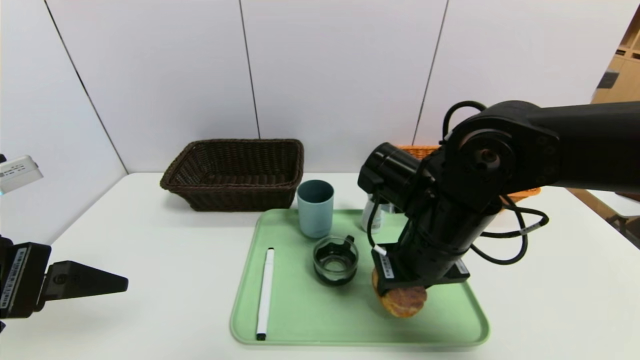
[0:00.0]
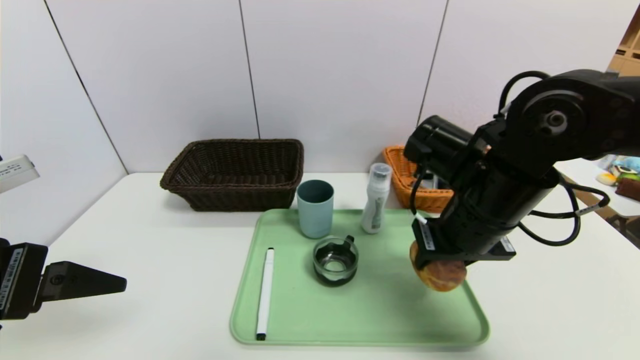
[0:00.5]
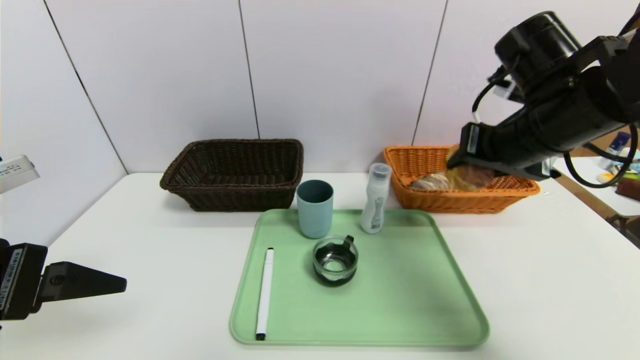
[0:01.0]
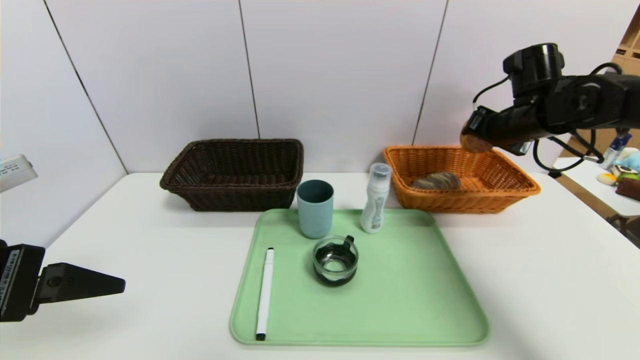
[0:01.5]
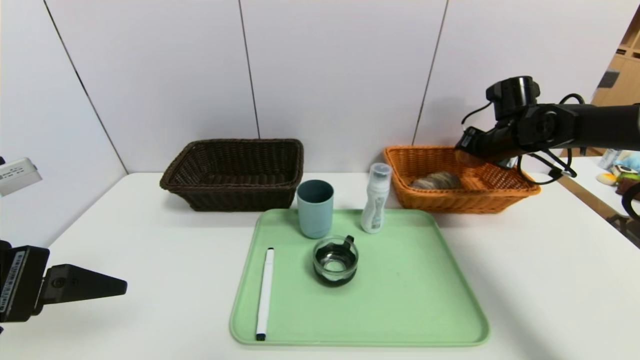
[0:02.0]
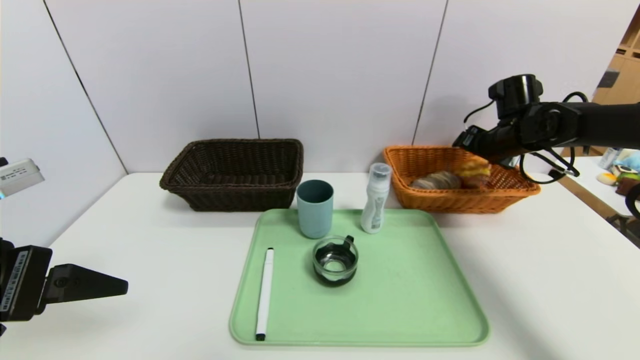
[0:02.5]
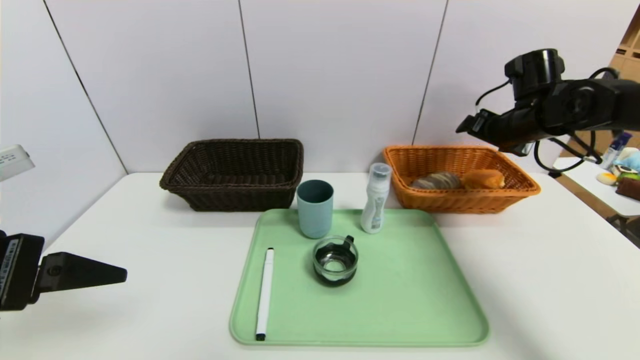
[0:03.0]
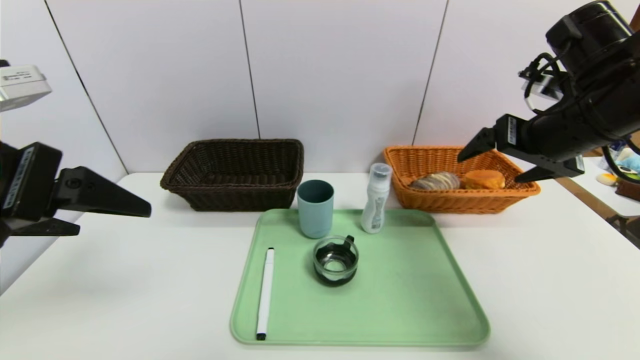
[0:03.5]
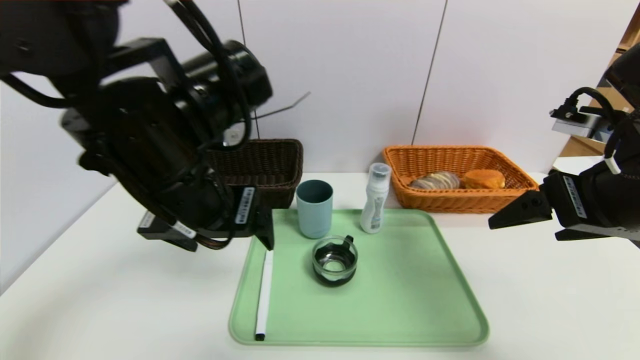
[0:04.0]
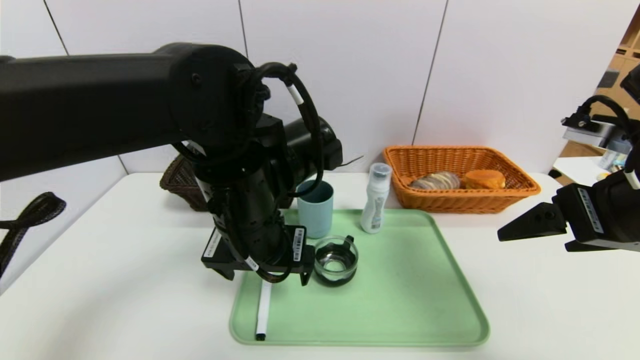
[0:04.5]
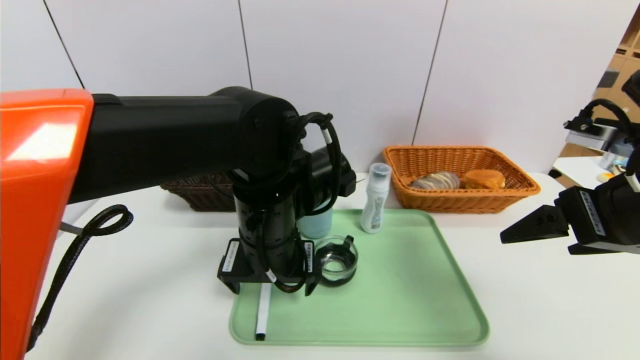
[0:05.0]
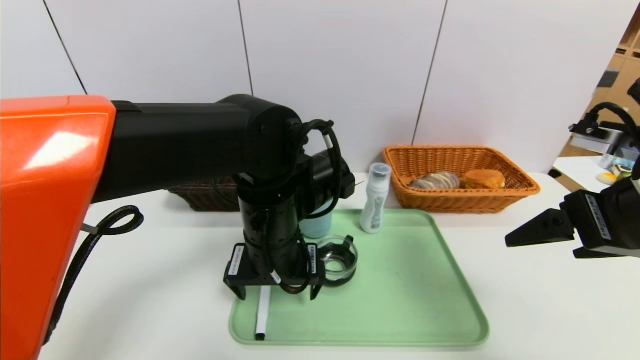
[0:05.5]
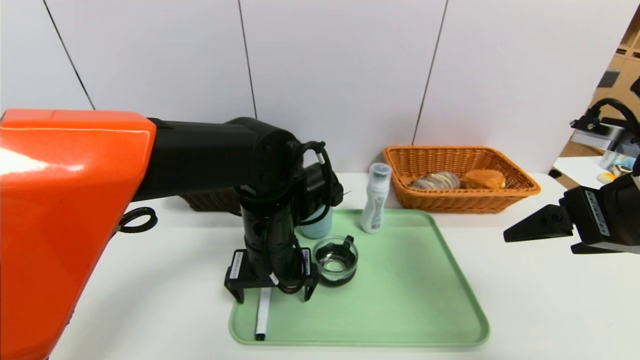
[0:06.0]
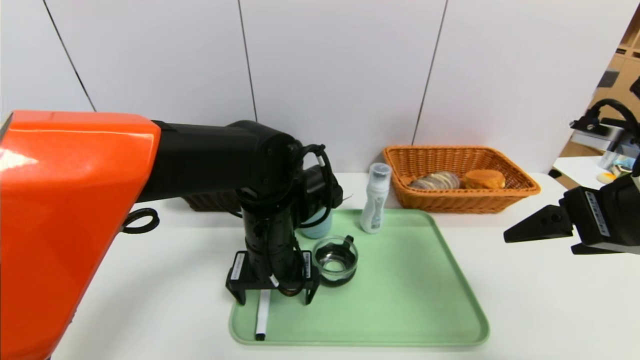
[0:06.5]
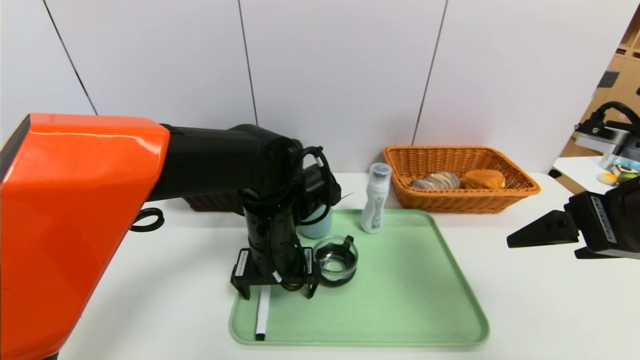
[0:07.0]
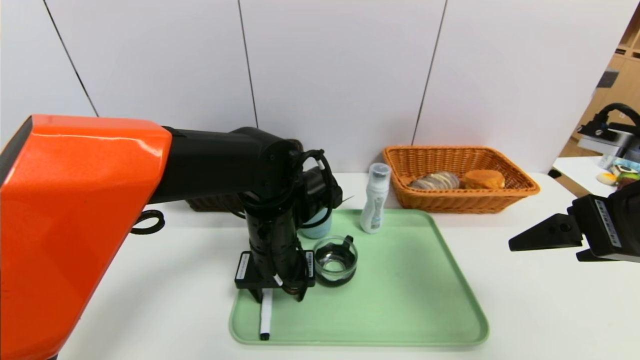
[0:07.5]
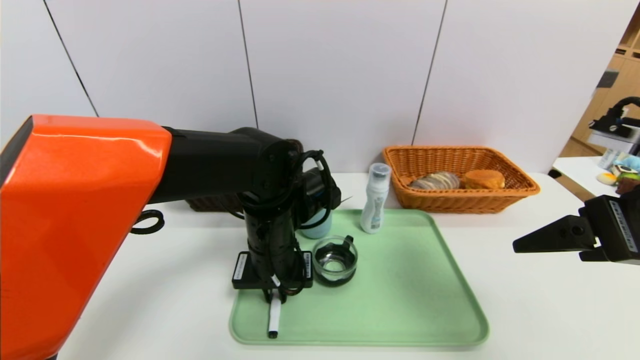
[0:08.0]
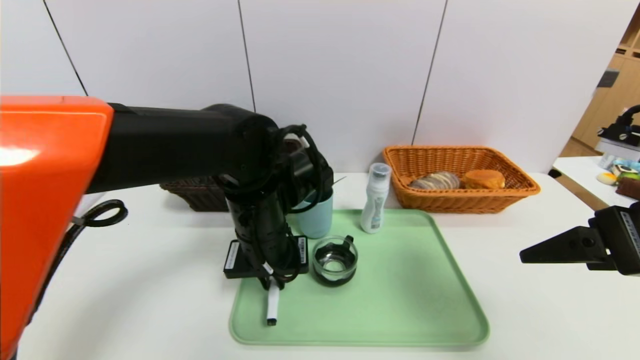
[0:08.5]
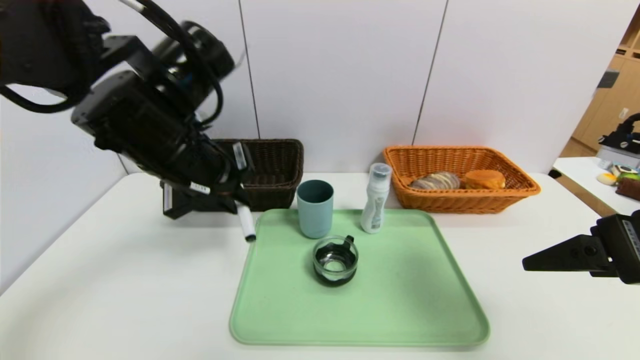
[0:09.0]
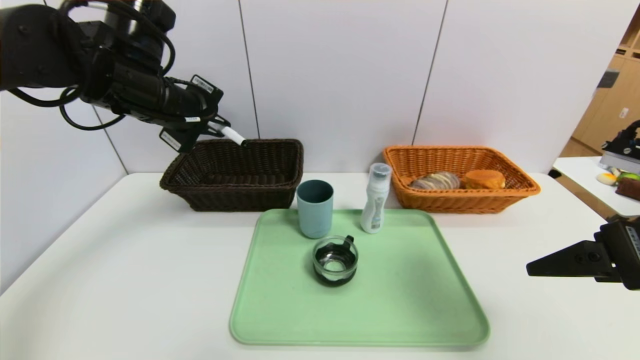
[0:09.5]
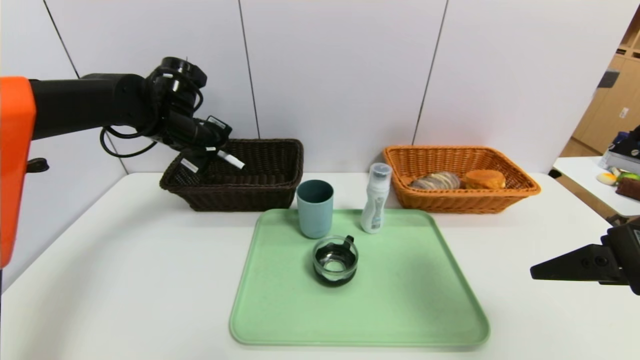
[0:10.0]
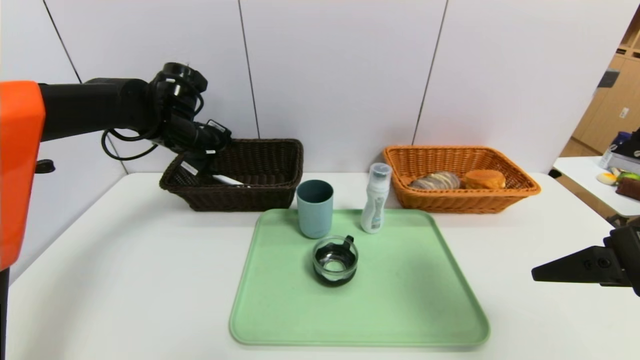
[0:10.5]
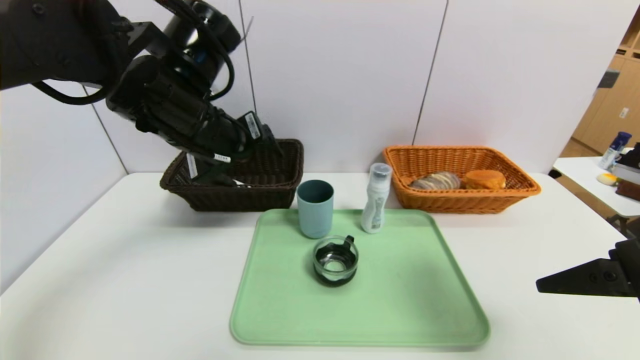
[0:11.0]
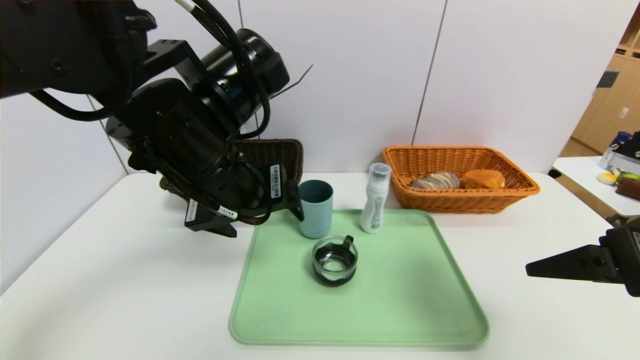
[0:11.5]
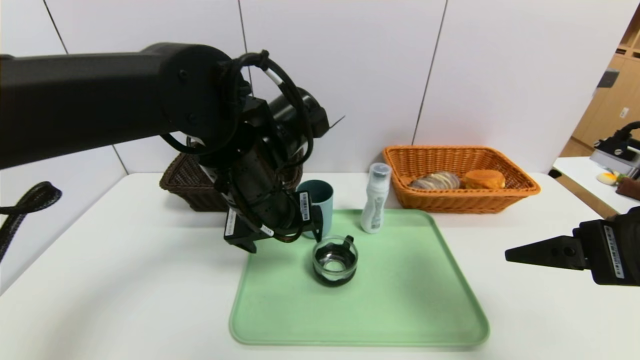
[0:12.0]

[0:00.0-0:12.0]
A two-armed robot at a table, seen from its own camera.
Task of the whole recording: place the food in the right basket with the right gripper, and place the non food items in the left basket with the left gripper.
Step, 0:00.0 to 0:02.5: Grasp the egg yolk pastry and put it in the right basket.
Step, 0:03.0 to 0:10.0: Grasp the black marker and put it in the left basket.
0:00.0 to 0:02.0: The right gripper goes approximately 30 cm to the right and forward.
0:02.0 to 0:04.0: The left gripper travels to the right and forward by roughly 20 cm. Meanwhile the right gripper heads backward, covering about 25 cm.
0:04.0 to 0:06.0: The left gripper moves downward, to the right and forward, about 15 cm.
0:06.0 to 0:08.0: The left gripper closes.
0:08.0 to 0:10.0: The left gripper shifts approximately 25 cm to the left, forward and upward.
0:10.0 to 0:12.0: The left gripper goes some 20 cm backward and to the right, and opens.

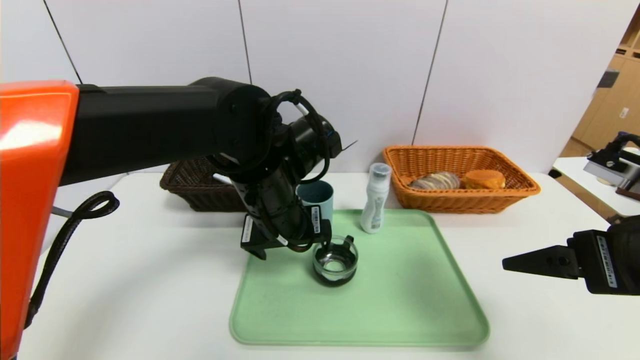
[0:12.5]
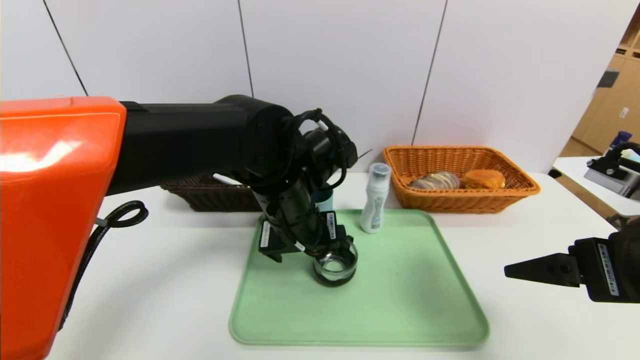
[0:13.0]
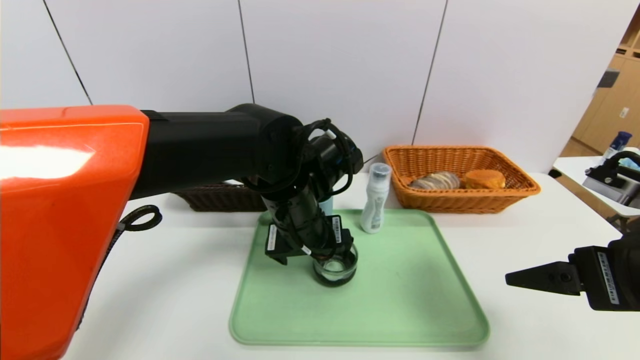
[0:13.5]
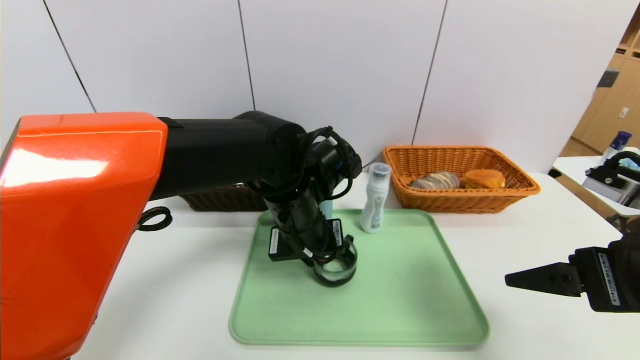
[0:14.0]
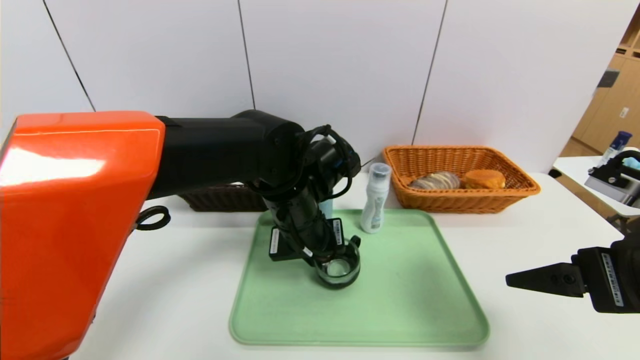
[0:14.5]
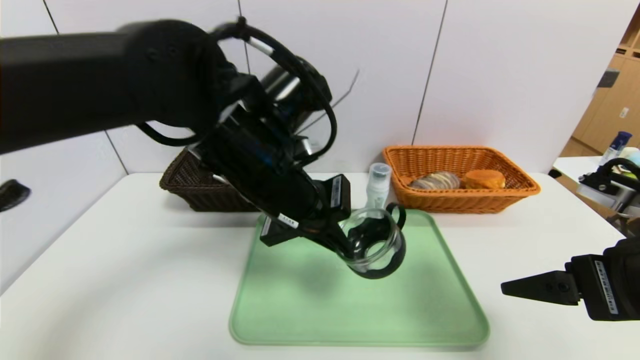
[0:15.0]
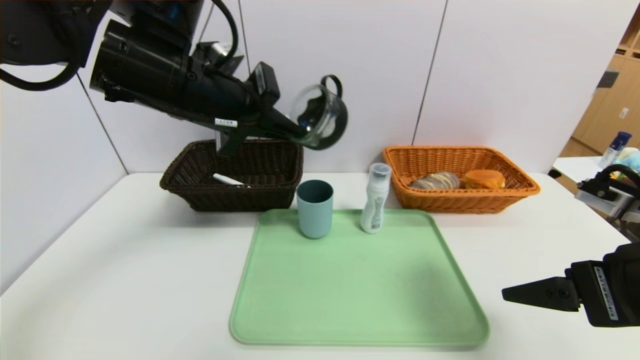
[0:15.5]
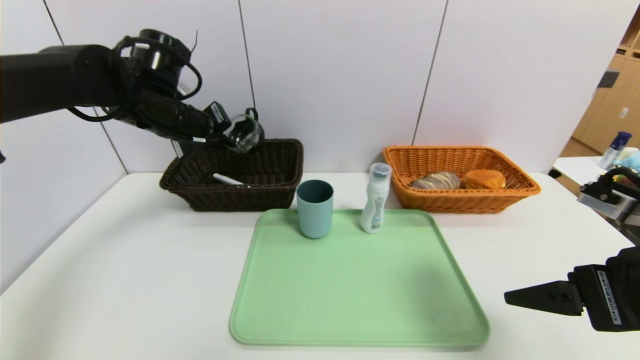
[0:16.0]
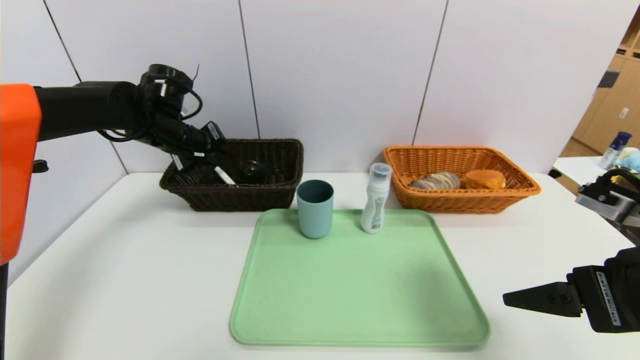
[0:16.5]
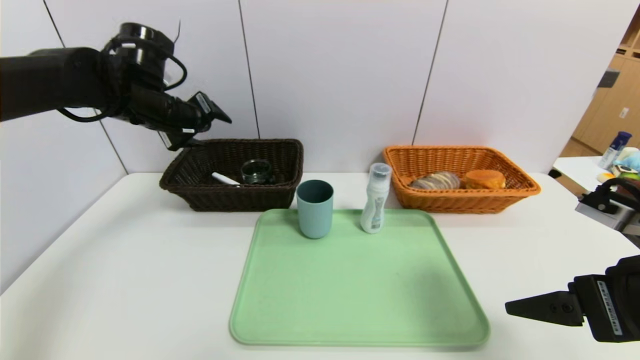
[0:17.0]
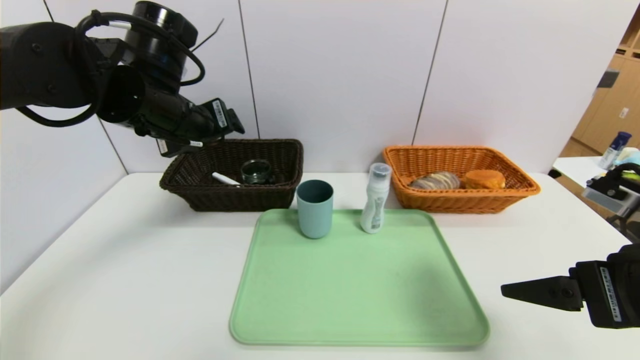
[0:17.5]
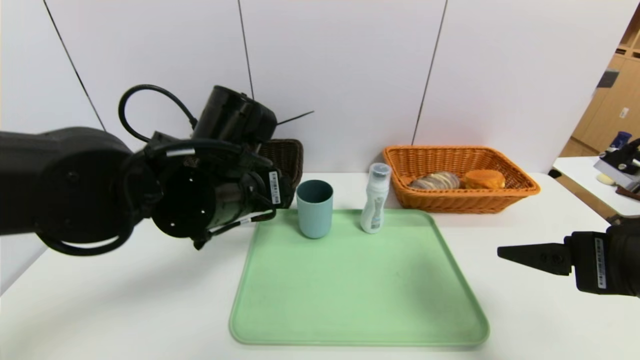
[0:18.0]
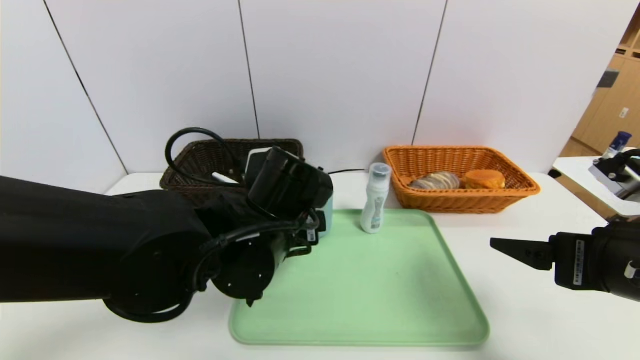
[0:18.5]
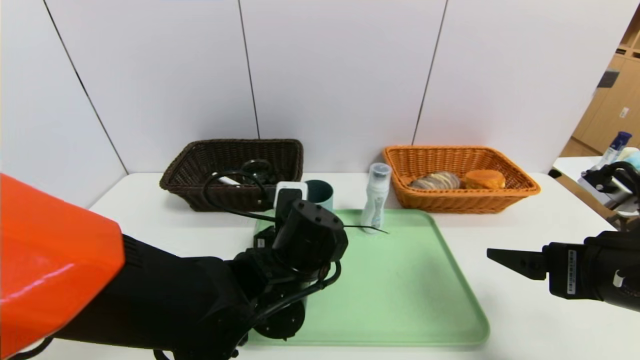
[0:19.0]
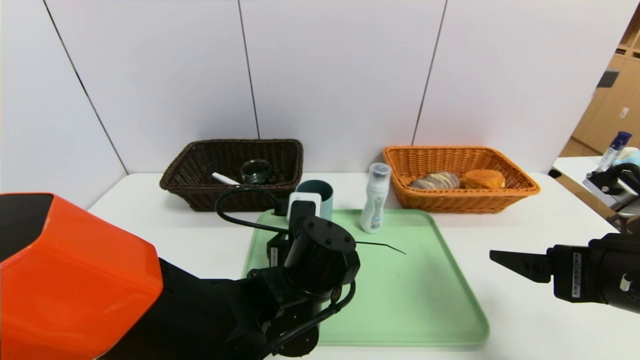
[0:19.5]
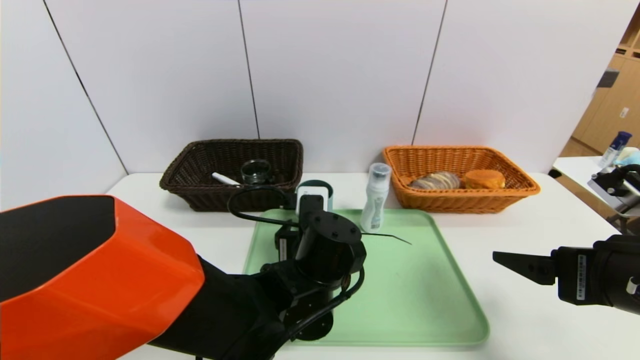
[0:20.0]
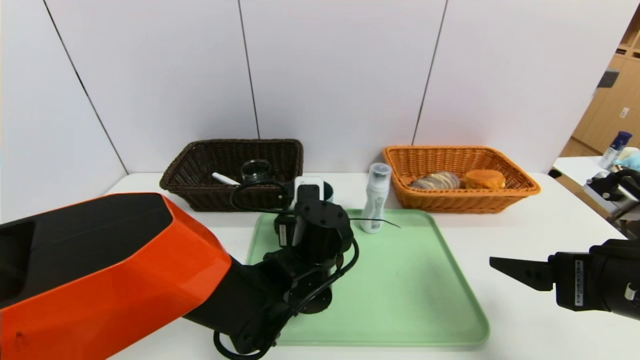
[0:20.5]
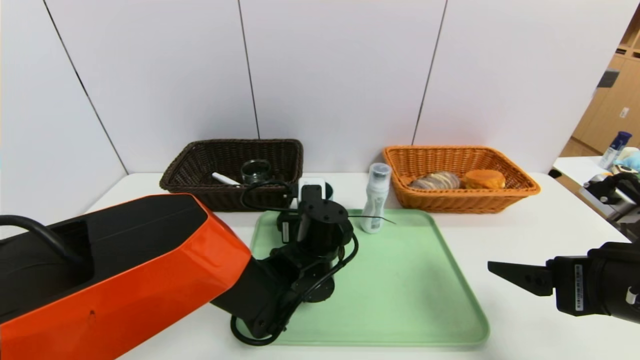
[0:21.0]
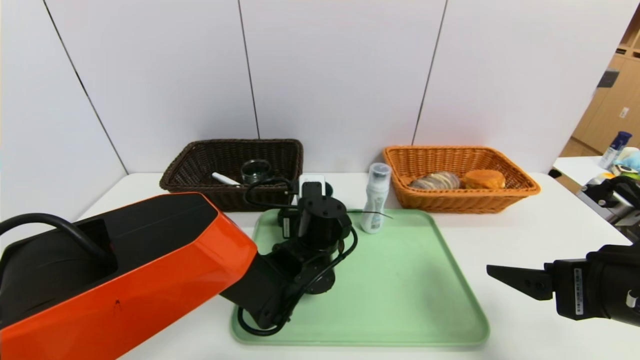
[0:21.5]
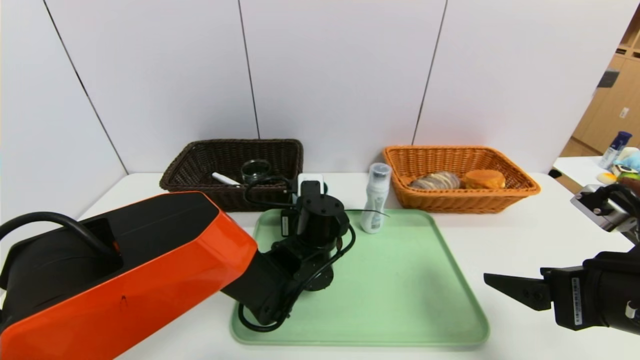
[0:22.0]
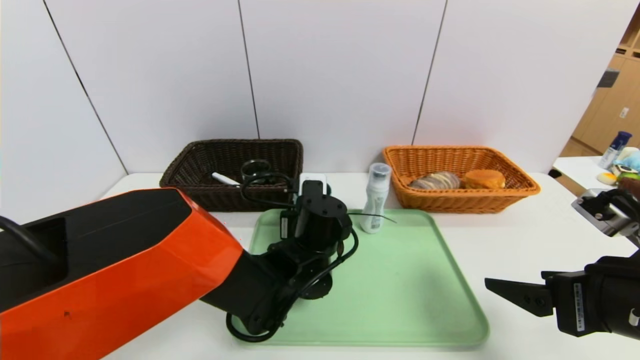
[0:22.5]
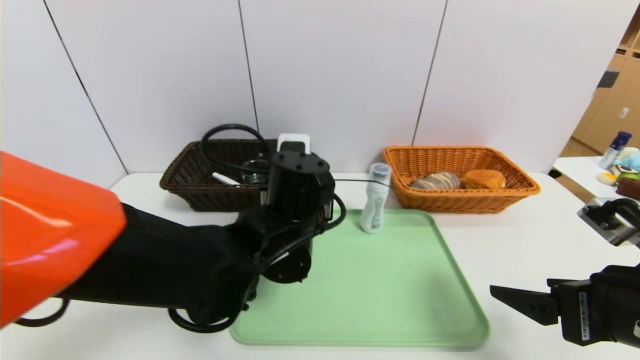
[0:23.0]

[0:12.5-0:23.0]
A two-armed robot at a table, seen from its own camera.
Task of the whole recording: place the food in the right basket with the right gripper, and place the non food items in the left basket with the left gripper.
Step, 0:12.5 to 0:16.5: Grasp the black glass cup and put it in the left basket.
0:12.5 to 0:14.5: The left gripper closes its fingers.
0:14.5 to 0:16.5: The left gripper shifts about 25 cm to the left and forward.
0:16.5 to 0:19.0: The left gripper is displaced to the right, backward and downward by about 30 cm, and opens.
0:19.0 to 0:21.0: The left gripper shifts roughly 5 cm forward.
0:21.0 to 0:23.0: The left gripper is displaced upward by approximately 10 cm.
